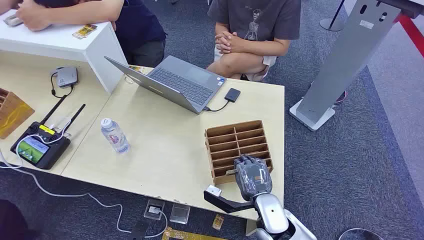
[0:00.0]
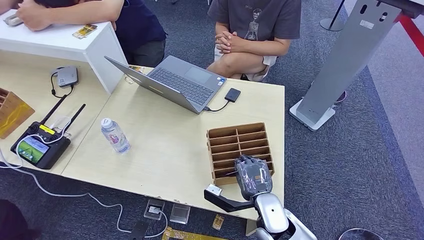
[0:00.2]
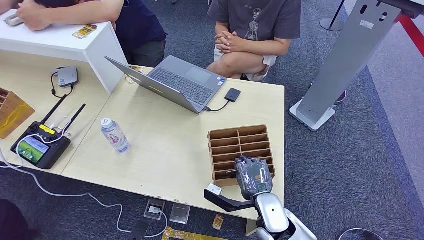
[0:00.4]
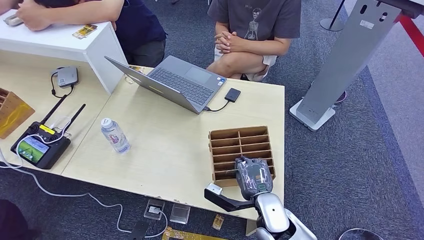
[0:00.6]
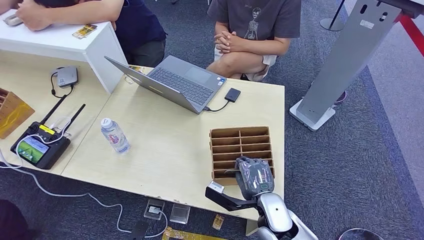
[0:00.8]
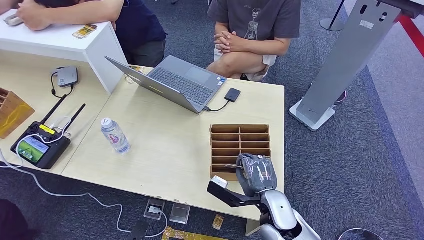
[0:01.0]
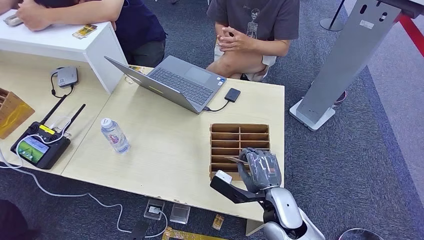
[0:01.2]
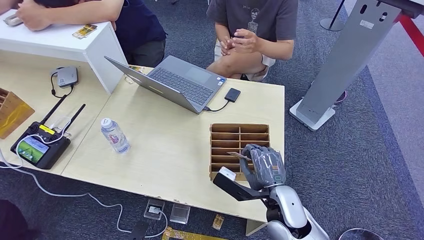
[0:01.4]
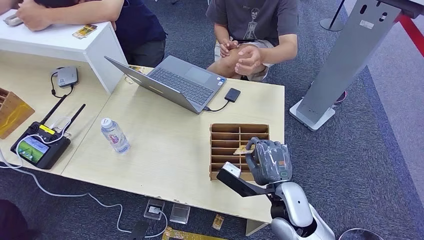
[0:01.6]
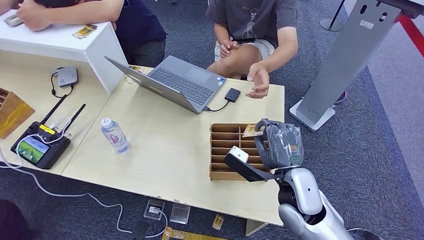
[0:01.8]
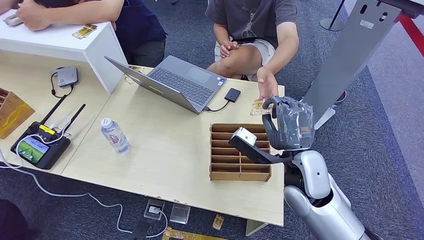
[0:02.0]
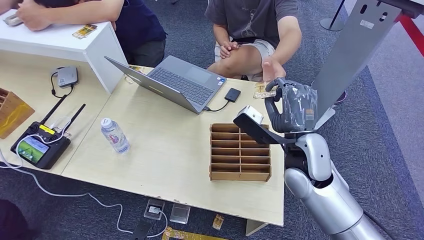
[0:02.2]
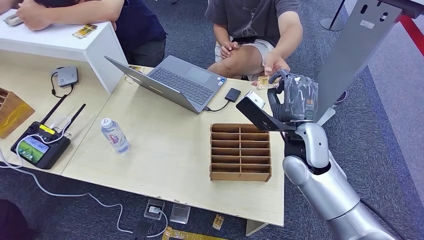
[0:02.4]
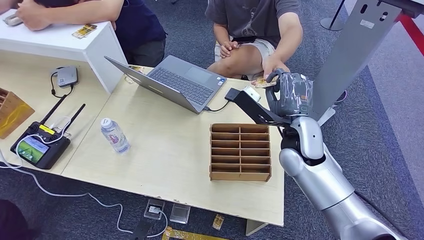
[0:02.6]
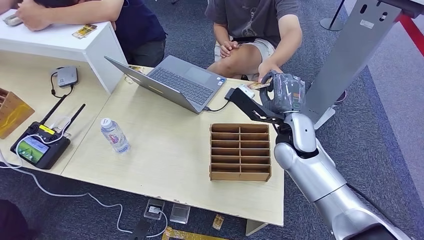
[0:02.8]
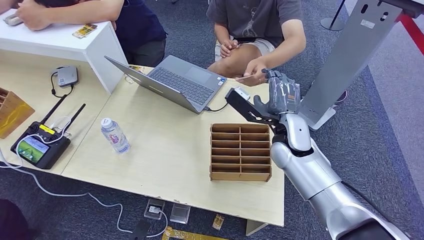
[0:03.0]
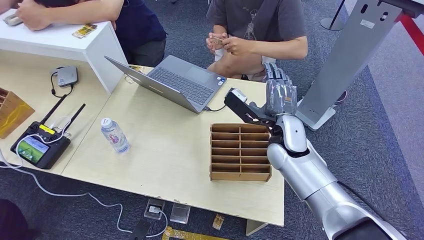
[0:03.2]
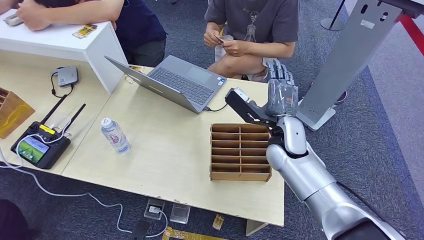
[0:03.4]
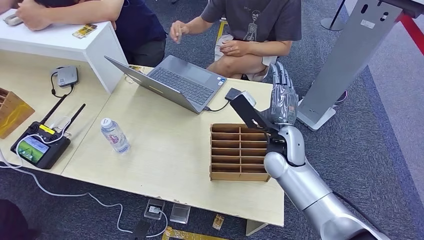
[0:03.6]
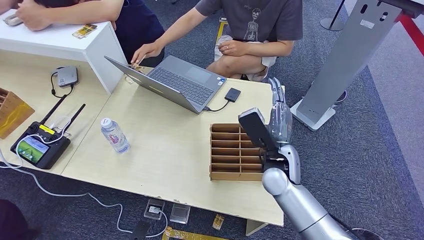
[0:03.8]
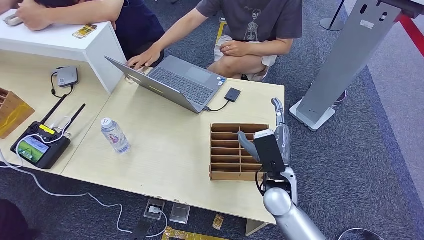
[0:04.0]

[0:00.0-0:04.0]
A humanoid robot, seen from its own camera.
Step, 0:00.0 to 0:01.4: Pick up the key card from the card box.
Step, 0:01.8 to 0:04.0: Hand the key card to the target.
0:01.4 to 0:02.6: The right hand is displaced forward and upward by roughly 15 cm.
0:02.6 to 0:04.0: The right hand travels downward and backward by approximately 15 cm.
